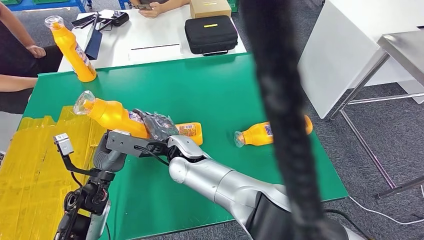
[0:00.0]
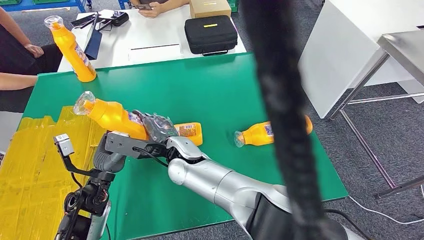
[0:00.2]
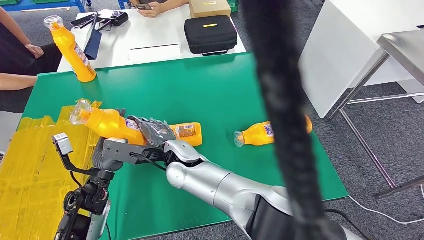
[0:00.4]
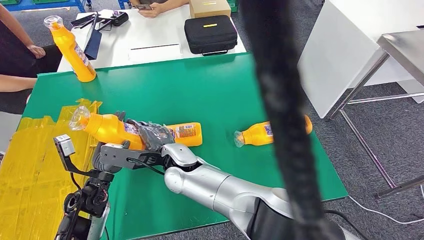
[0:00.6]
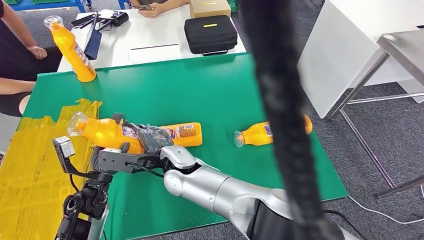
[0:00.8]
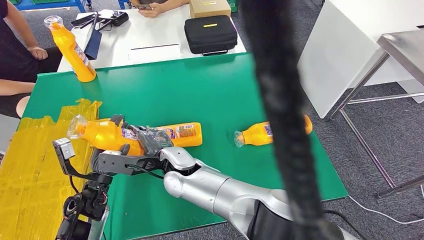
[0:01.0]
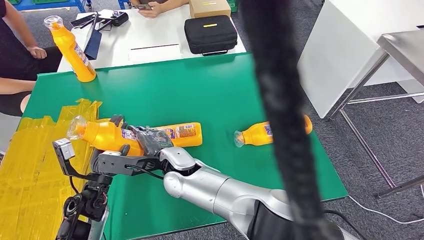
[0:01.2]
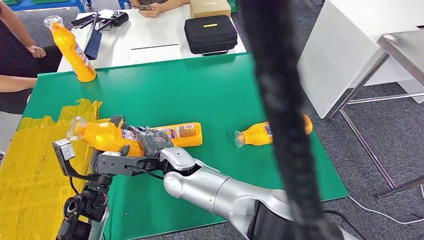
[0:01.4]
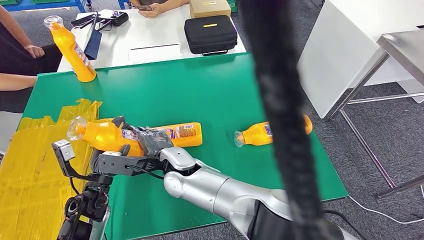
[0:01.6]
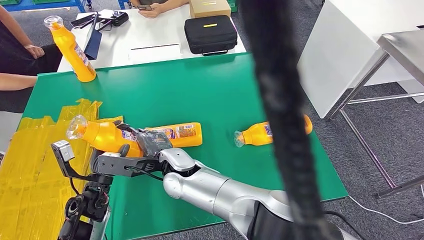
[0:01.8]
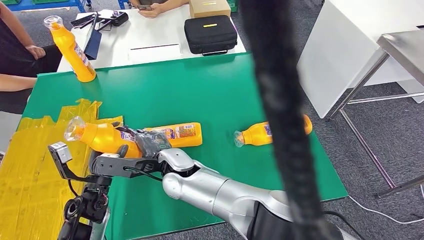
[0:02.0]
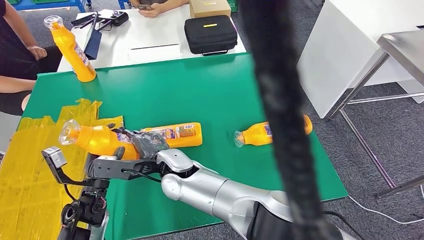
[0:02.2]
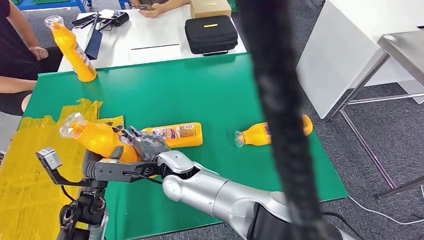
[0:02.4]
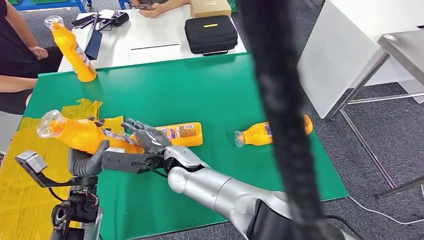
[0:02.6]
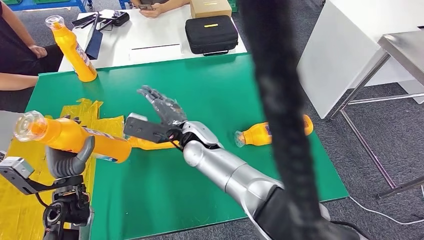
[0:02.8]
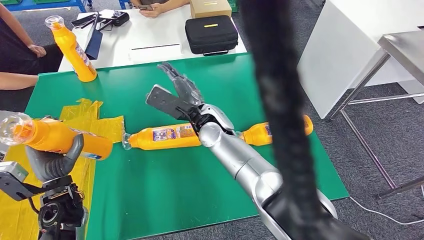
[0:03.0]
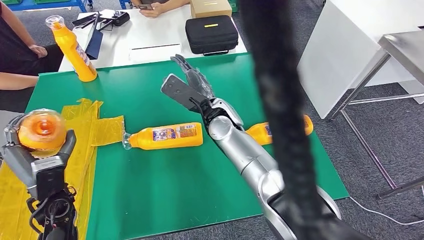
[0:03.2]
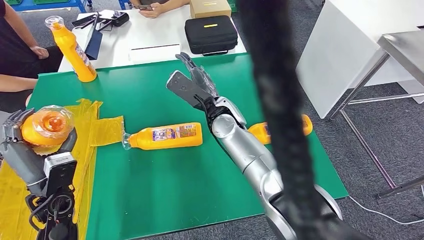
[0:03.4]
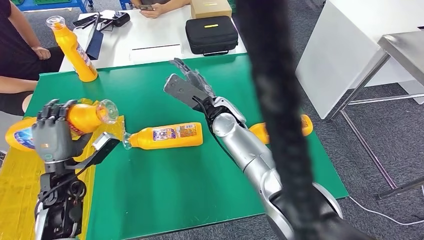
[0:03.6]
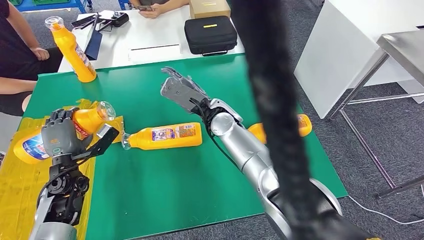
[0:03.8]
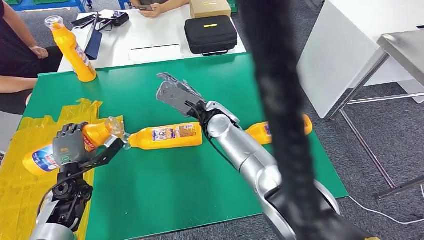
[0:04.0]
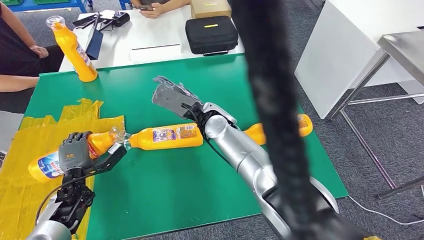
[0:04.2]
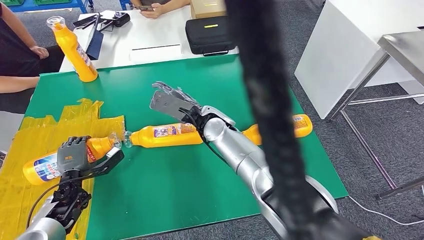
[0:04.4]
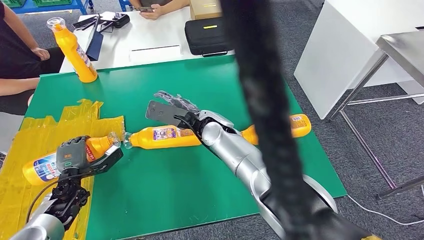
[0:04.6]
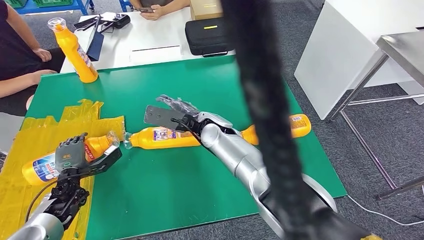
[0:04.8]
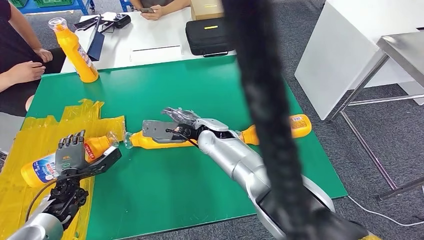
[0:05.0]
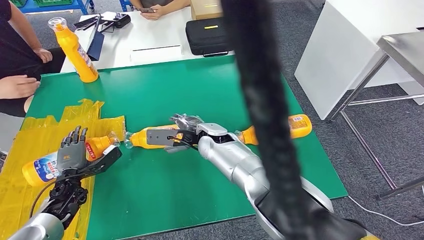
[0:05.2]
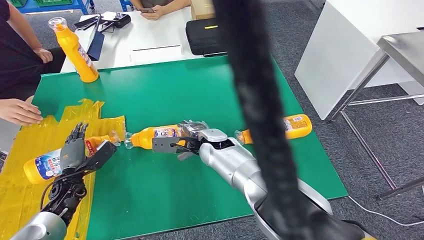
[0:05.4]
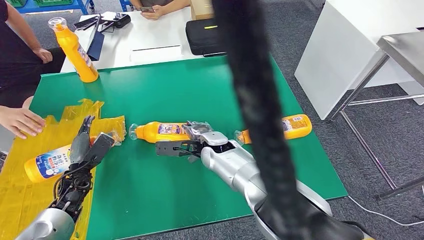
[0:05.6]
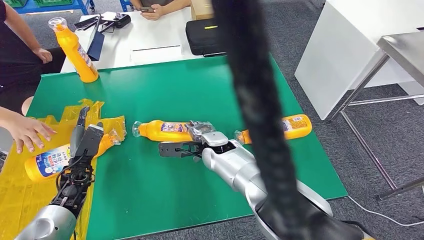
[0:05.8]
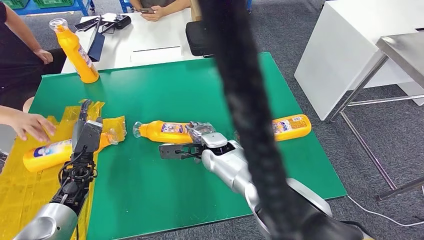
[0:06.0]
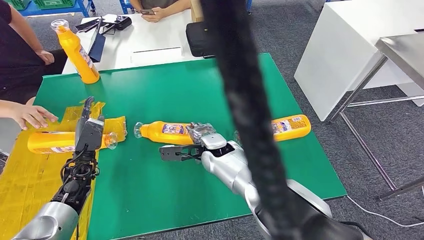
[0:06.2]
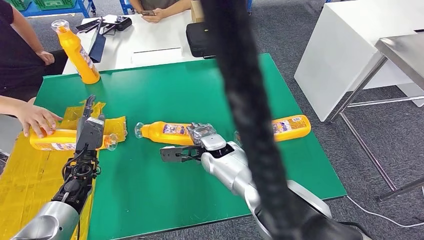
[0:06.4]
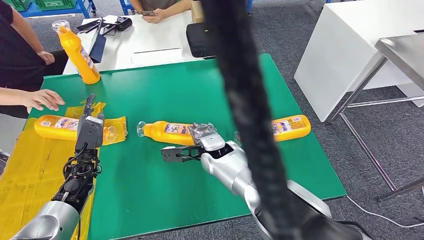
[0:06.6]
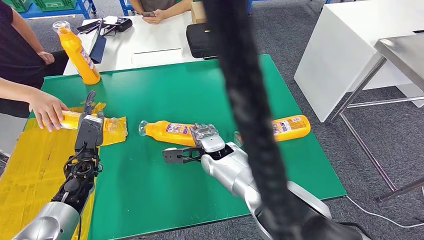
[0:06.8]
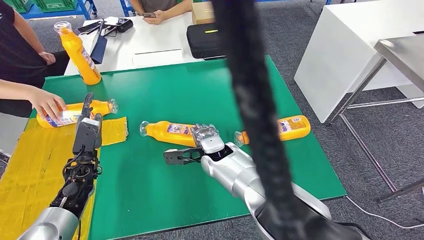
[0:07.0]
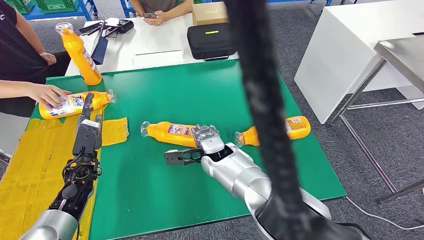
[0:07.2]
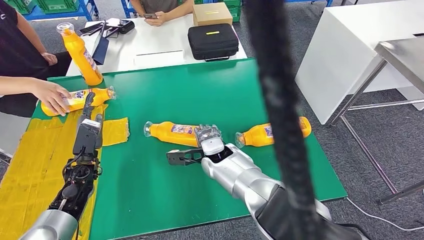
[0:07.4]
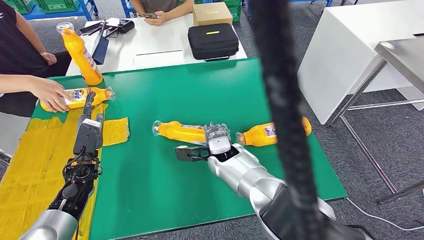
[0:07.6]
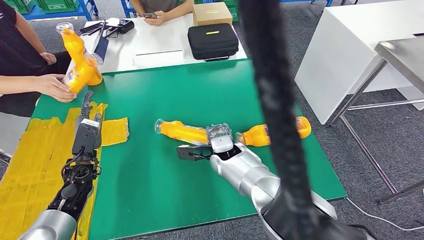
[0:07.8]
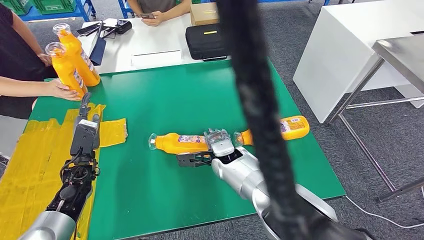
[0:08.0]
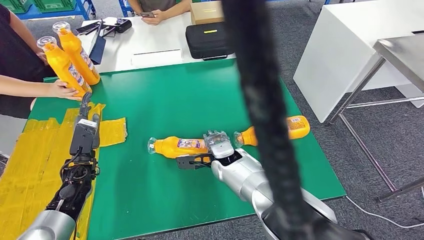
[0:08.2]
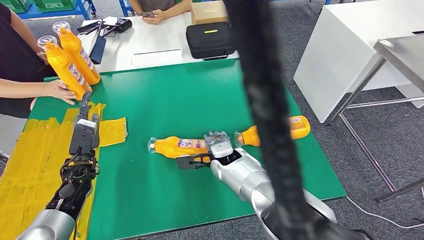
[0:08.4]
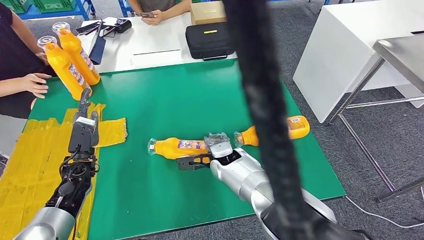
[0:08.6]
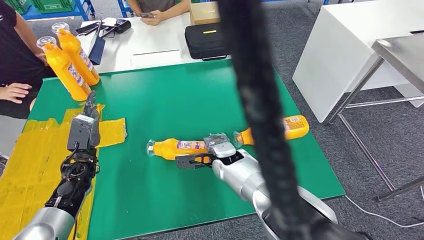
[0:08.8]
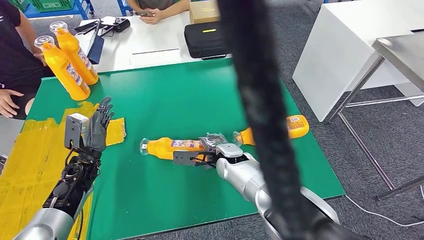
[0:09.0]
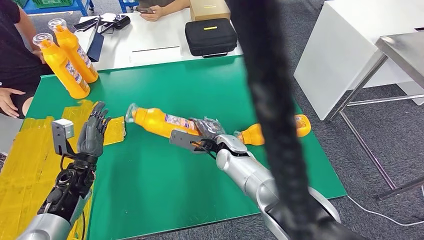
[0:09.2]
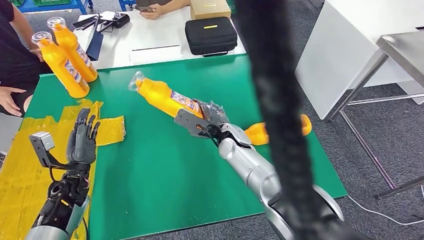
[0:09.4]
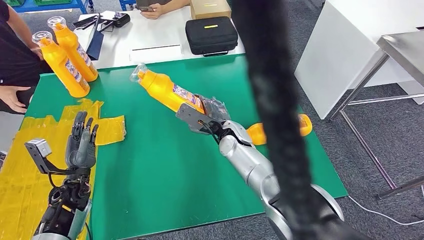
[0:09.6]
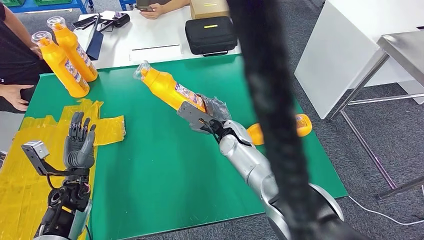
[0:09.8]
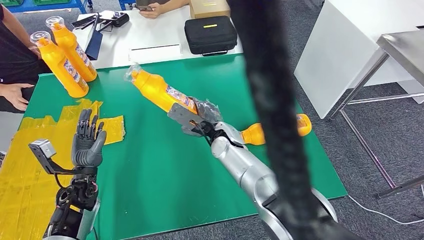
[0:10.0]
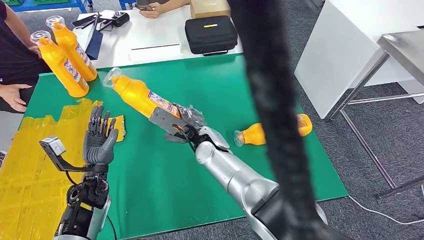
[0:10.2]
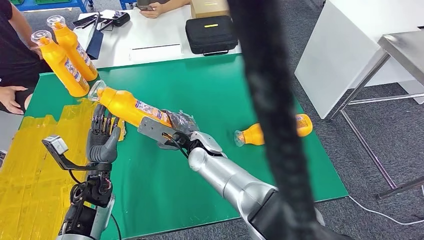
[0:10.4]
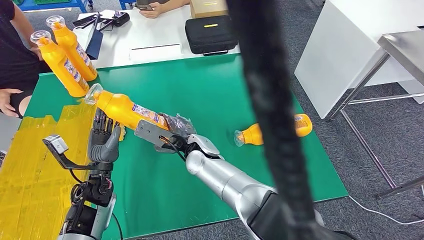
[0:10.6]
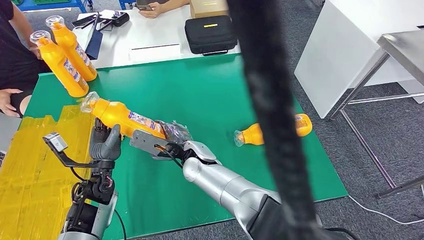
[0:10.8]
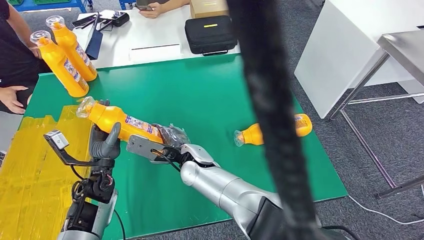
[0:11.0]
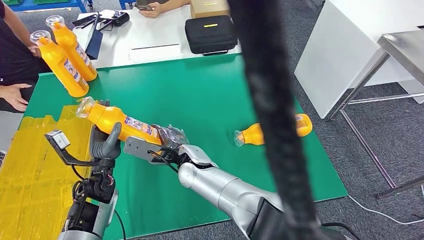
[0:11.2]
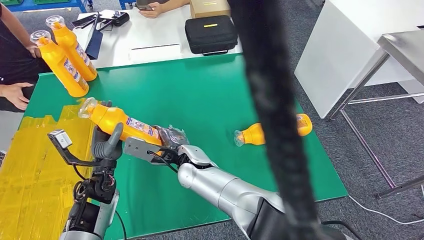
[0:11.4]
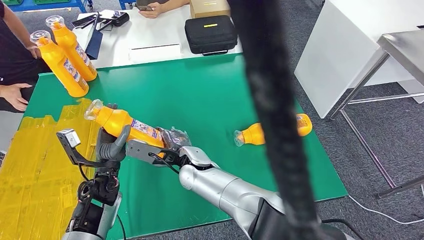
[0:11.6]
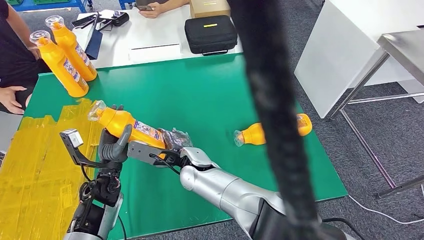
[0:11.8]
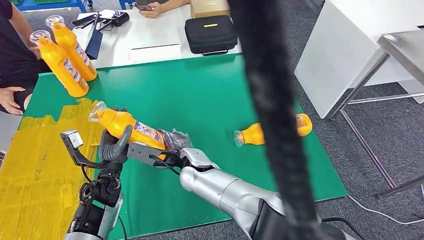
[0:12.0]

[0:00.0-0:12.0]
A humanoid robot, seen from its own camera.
Step, 0:00.0 to 0:04.8: Flip the fast-moving consumer goods bottle to the front side.
Step, 0:05.0 to 0:10.4: Pick up the fast-moving consumer goods bottle from the table.
0:00.0 to 0:01.6: There are only small adjustments of the hands.
0:10.4 to 0:12.0: The right hand changes place by roughly 5 cm.

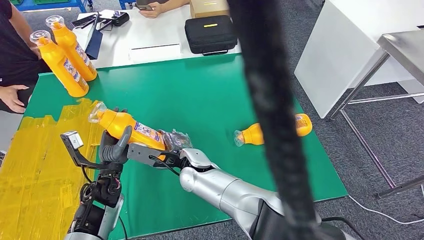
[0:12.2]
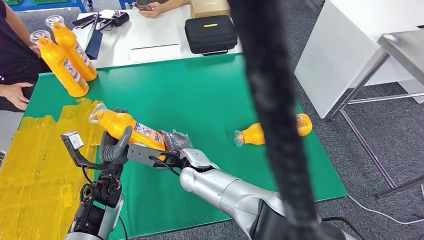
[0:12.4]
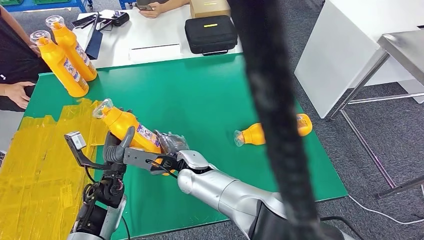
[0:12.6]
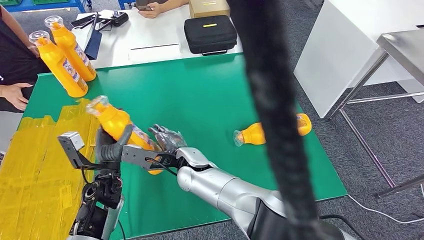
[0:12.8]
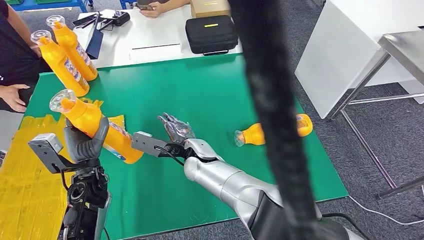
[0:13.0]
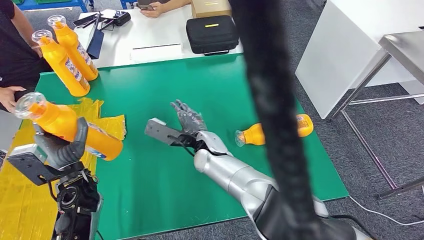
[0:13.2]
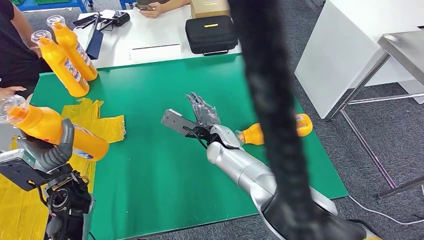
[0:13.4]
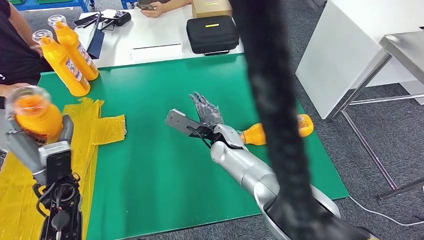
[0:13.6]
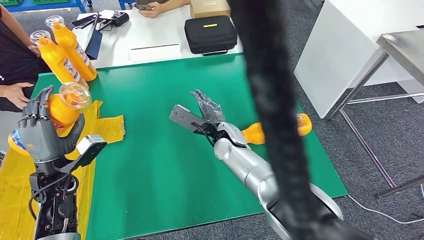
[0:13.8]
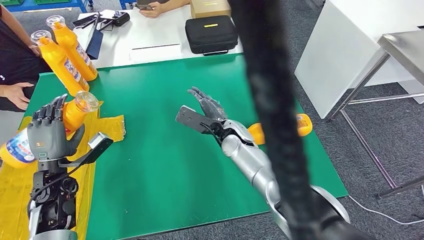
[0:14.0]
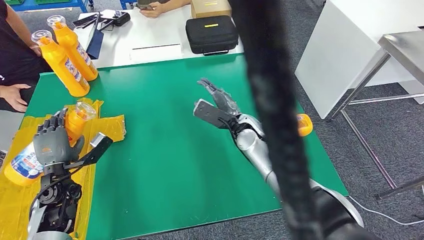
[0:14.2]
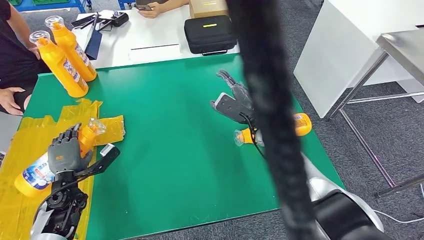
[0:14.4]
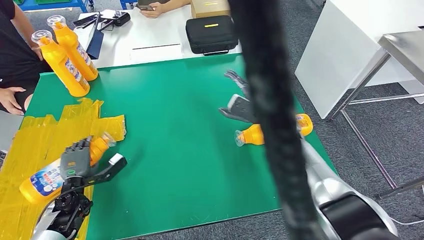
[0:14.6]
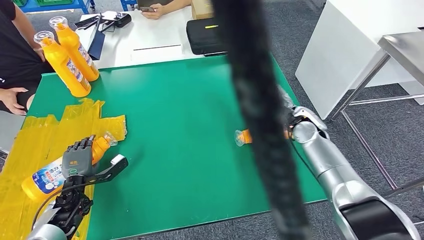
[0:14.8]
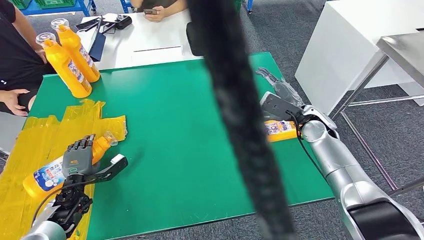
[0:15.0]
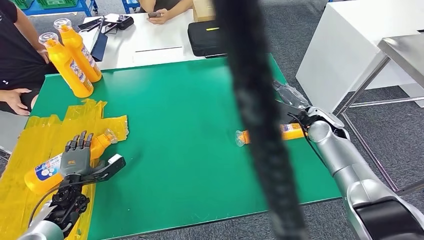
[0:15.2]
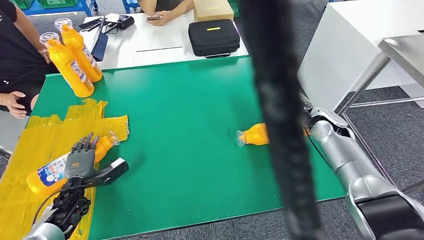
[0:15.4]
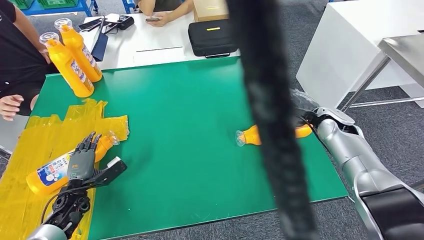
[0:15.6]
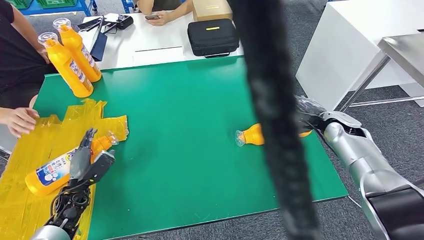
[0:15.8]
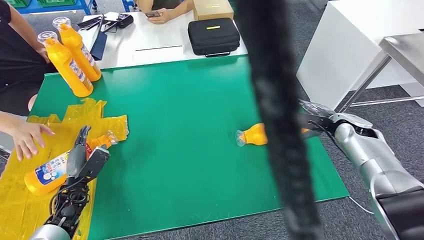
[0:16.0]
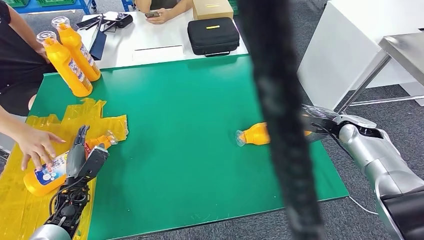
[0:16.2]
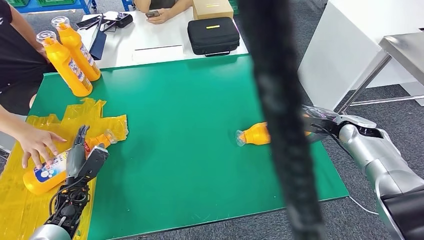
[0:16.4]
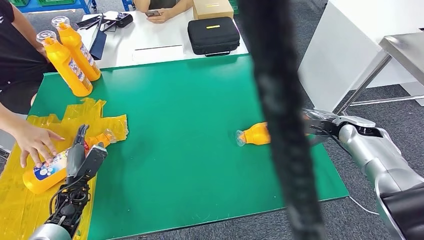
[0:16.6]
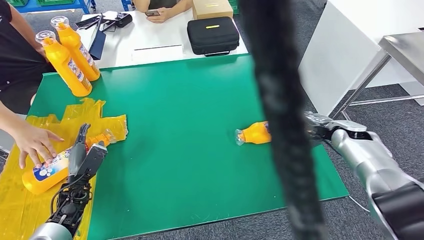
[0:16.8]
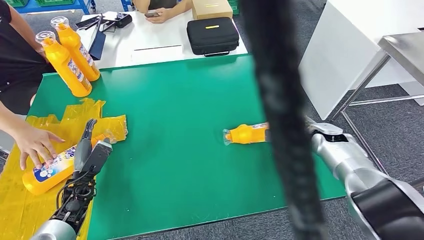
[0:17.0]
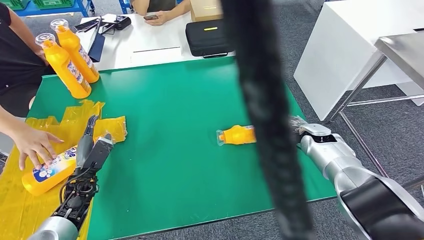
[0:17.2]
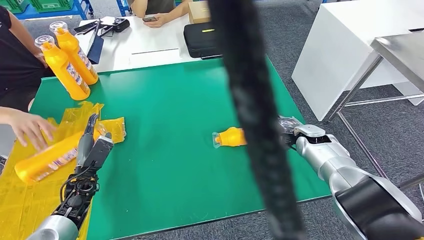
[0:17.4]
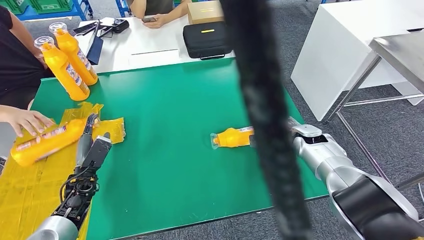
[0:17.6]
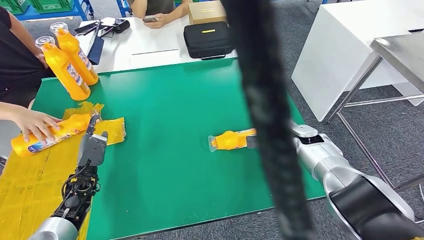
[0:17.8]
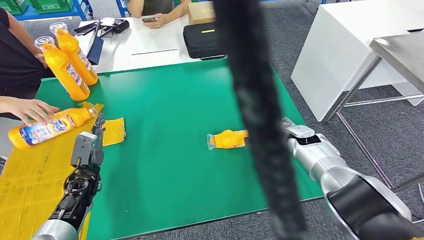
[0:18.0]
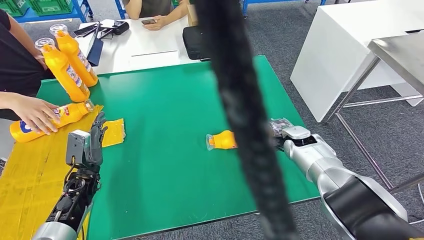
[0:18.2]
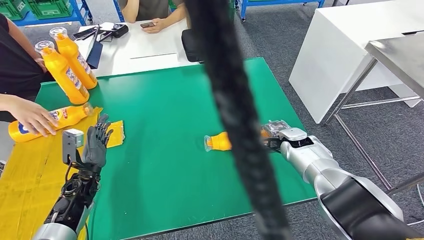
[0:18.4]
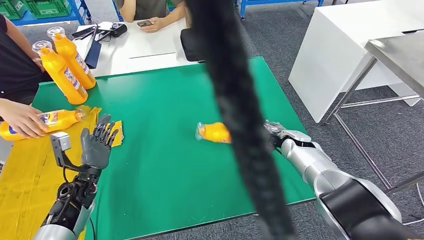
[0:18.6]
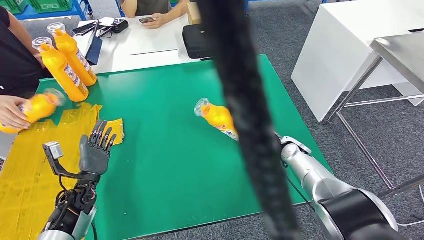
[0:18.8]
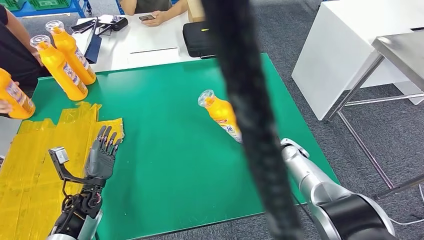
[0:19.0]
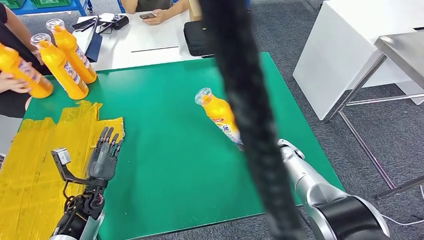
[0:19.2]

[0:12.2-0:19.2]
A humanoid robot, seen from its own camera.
Step, 0:12.2 to 0:15.2: Flip the fast-moving consumer goods bottle to the front side.
